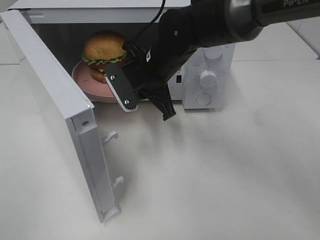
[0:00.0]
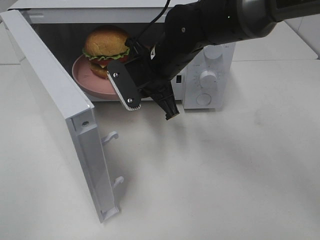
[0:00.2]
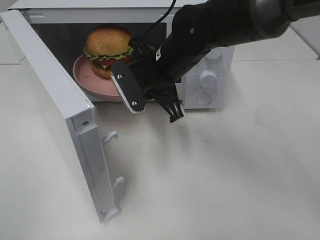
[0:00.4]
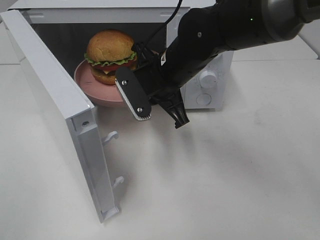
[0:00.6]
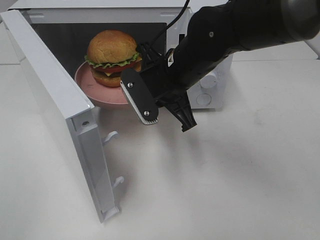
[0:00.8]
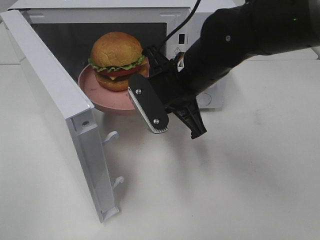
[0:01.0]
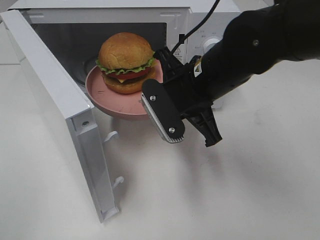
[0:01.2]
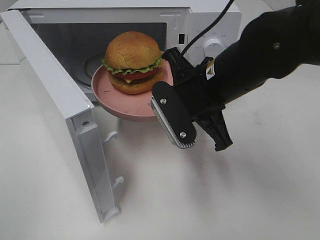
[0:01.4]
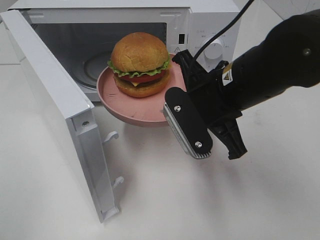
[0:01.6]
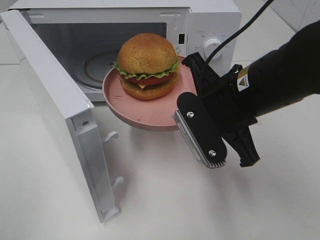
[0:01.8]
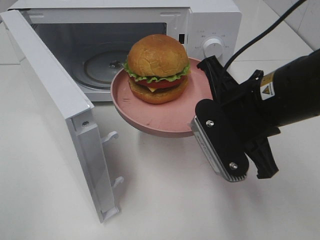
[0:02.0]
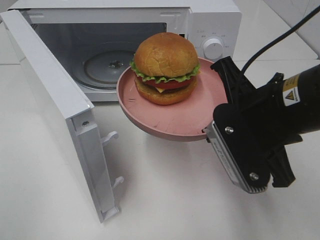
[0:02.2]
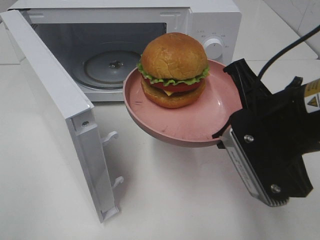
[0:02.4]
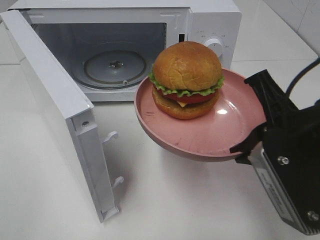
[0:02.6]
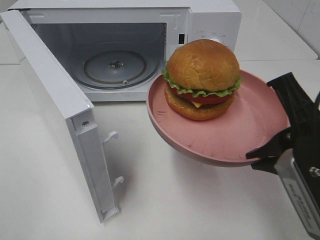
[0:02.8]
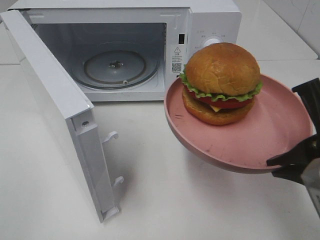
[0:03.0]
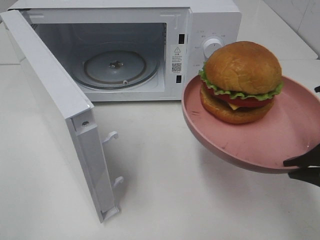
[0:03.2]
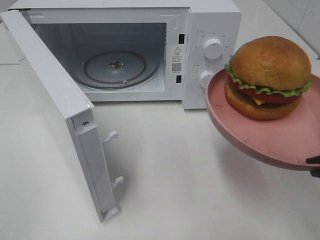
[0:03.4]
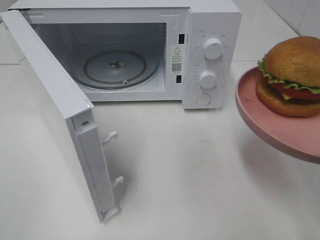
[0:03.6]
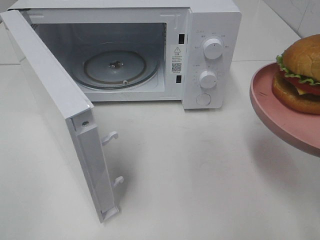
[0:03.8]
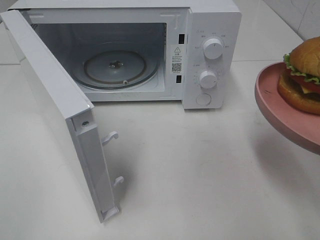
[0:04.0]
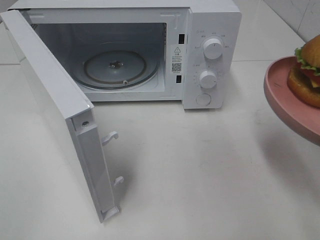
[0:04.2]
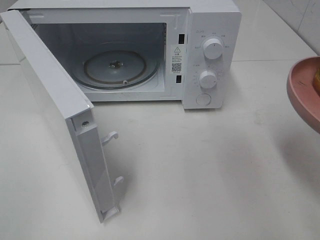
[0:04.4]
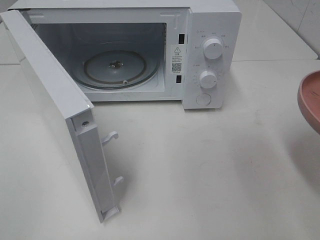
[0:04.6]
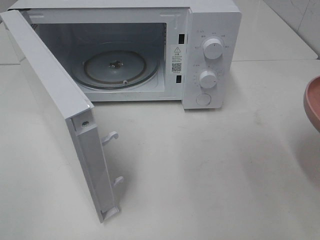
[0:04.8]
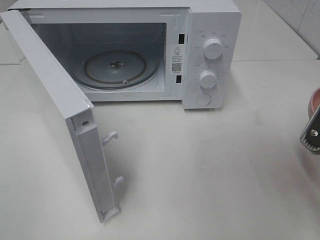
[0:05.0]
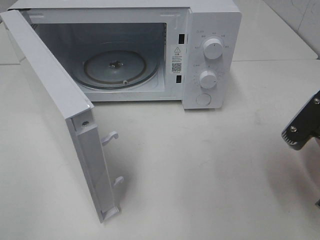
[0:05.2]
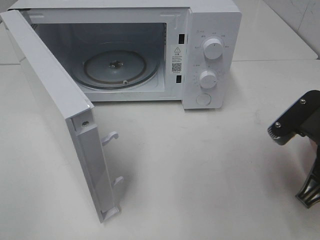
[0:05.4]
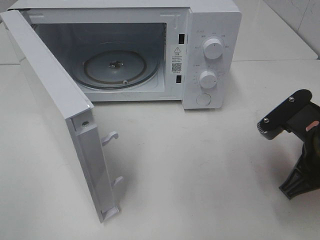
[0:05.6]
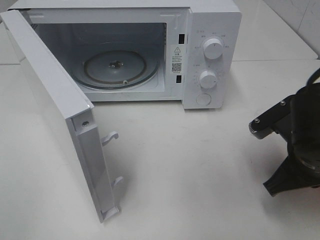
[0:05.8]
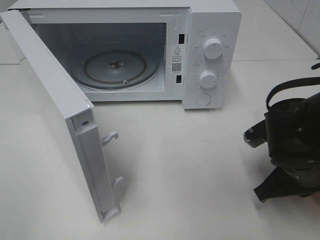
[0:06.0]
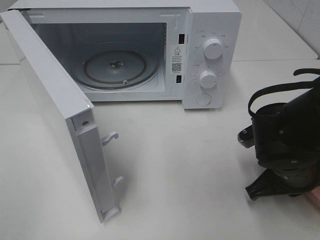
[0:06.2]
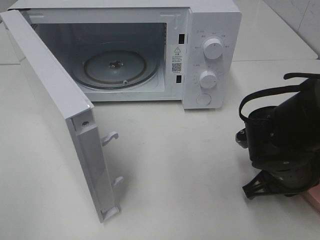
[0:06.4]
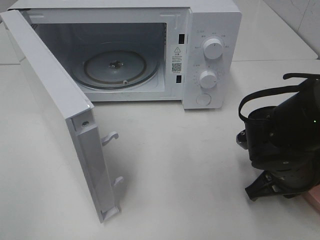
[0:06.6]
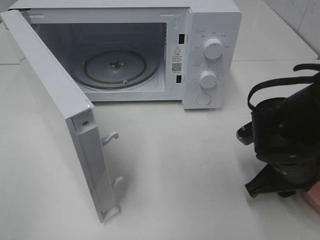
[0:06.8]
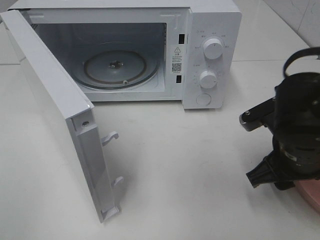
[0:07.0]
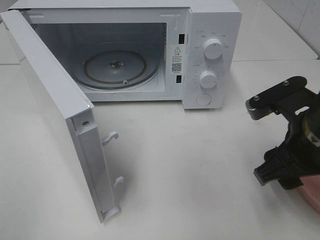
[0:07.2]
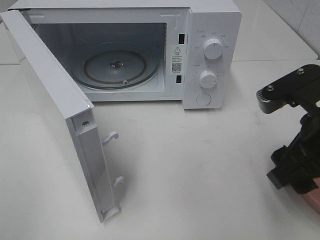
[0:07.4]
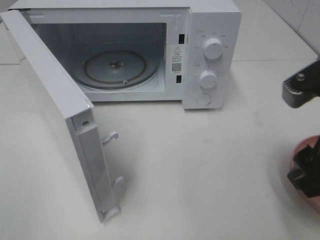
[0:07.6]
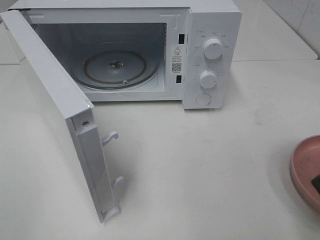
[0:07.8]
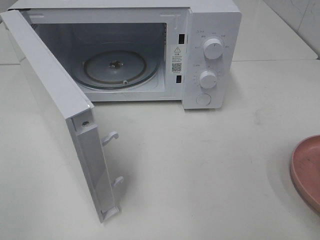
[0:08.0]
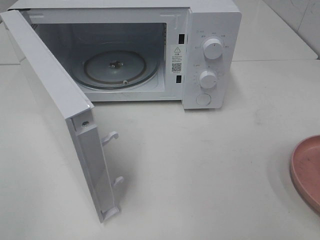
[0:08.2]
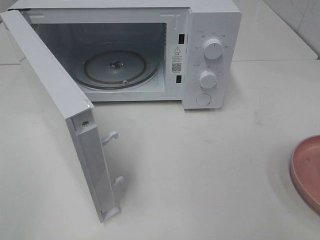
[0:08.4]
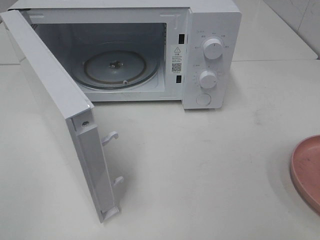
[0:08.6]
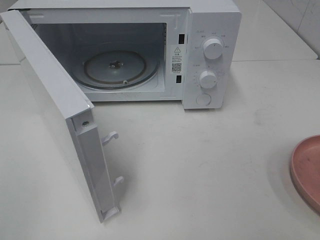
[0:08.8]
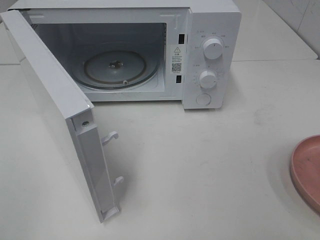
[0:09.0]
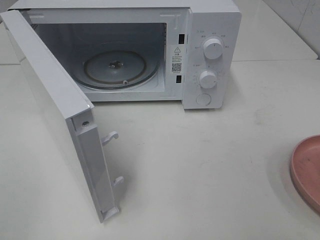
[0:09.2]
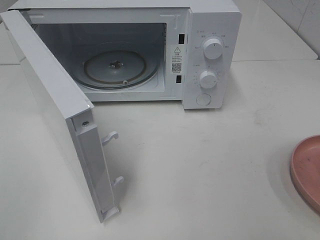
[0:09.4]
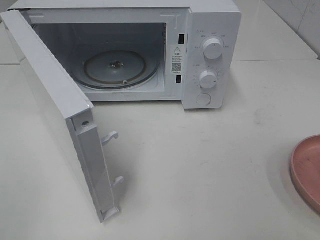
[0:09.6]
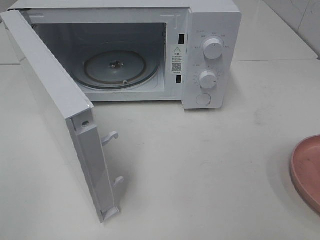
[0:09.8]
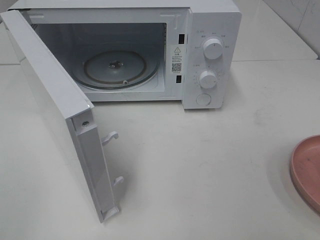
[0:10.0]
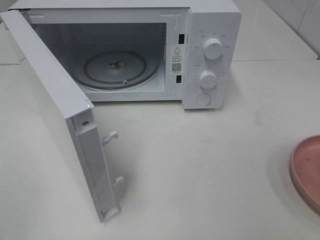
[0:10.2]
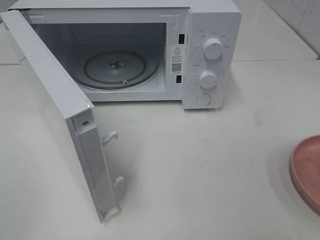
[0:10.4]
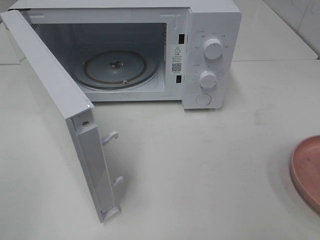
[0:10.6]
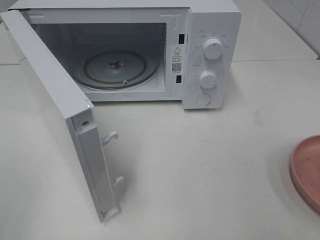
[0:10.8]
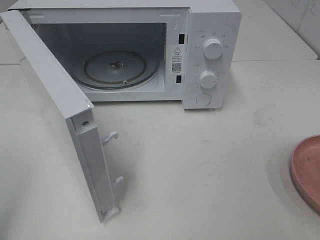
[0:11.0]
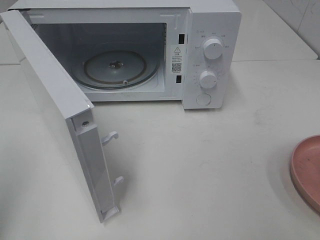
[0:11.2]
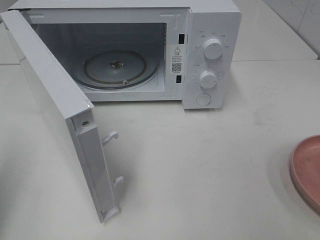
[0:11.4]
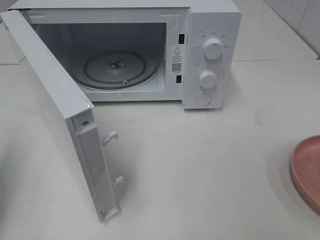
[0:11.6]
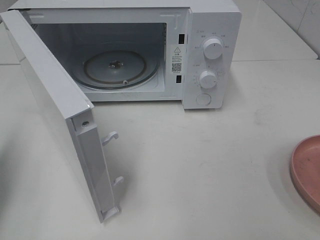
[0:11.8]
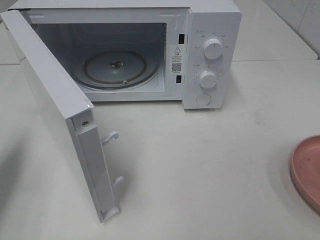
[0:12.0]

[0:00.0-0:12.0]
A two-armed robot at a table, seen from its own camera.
Task of the whole recording: Heat the burger.
Step, 0:00.0 to 0:07.0: Right hand: place the plate on the table.
0:00.0 to 0:01.6: The right gripper goes about 15 cm backward and to the right.
0:01.6 to 0:03.0: The right gripper goes some 15 cm backward and to the right.
0:03.0 to 0:04.4: The right gripper shifts some 5 cm to the right.
0:04.4 to 0:06.0: The right gripper moves downward, forward and to the left, approximately 20 cm.
0:06.0 to 0:07.6: The right gripper travels upward and backward by some 15 cm, and opens.
0:07.6 to 0:09.0: The right gripper is displaced backward and to the right by about 15 cm.
0:09.0 to 0:10.4: Both grippers stay put.
0:10.4 to 0:12.0: The left gripper travels forward by some 20 cm, and closes.

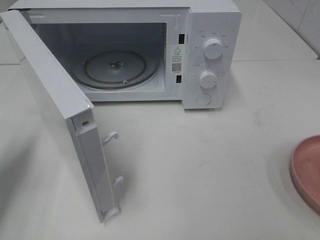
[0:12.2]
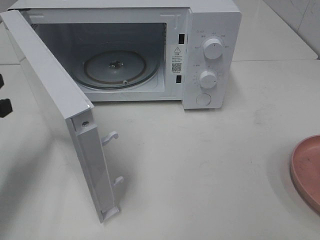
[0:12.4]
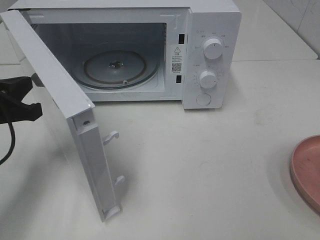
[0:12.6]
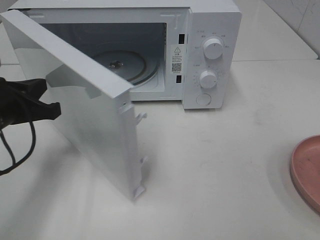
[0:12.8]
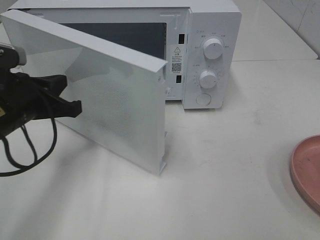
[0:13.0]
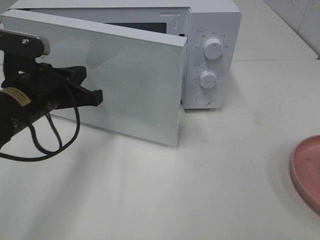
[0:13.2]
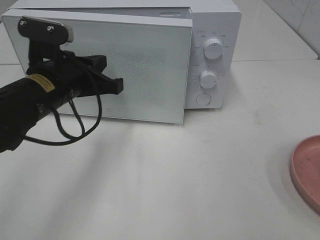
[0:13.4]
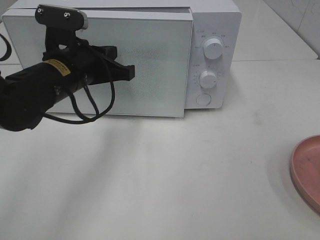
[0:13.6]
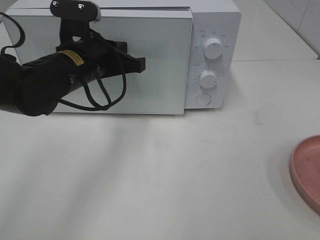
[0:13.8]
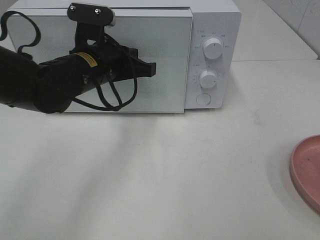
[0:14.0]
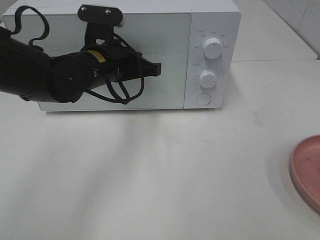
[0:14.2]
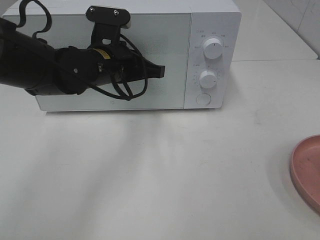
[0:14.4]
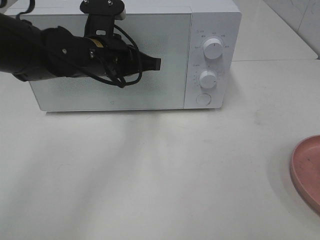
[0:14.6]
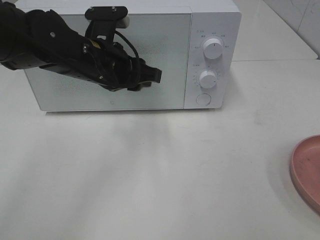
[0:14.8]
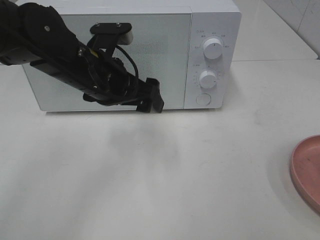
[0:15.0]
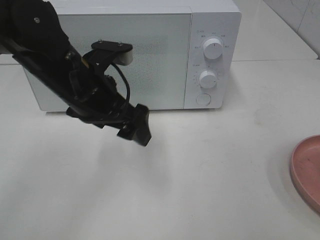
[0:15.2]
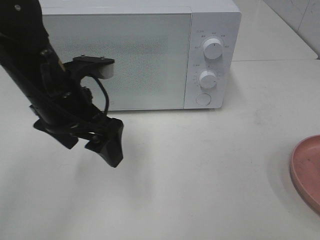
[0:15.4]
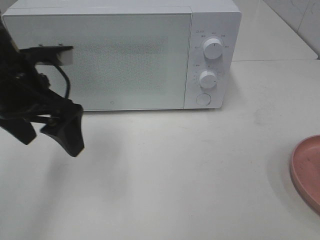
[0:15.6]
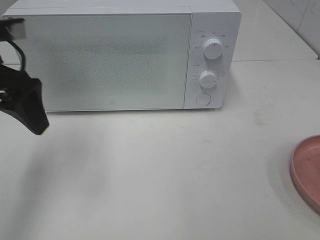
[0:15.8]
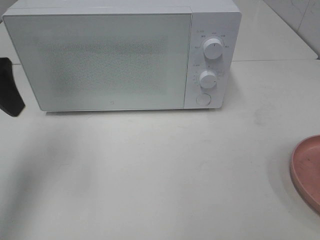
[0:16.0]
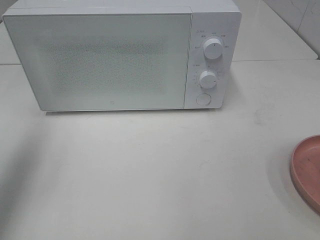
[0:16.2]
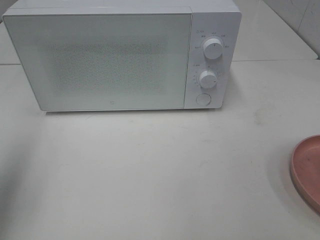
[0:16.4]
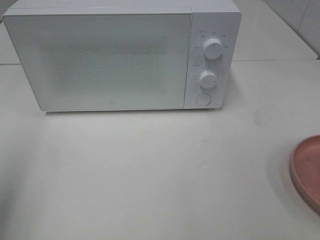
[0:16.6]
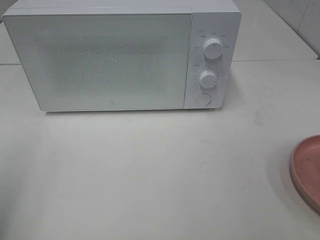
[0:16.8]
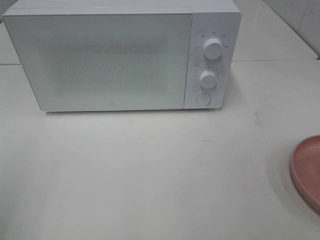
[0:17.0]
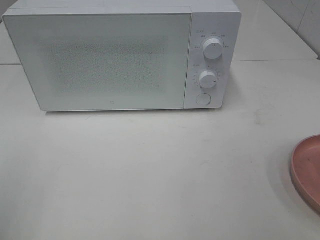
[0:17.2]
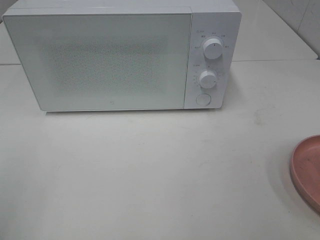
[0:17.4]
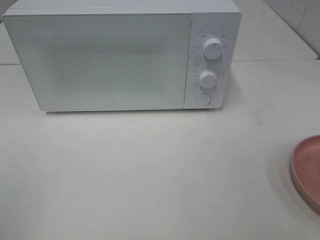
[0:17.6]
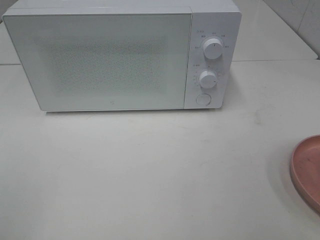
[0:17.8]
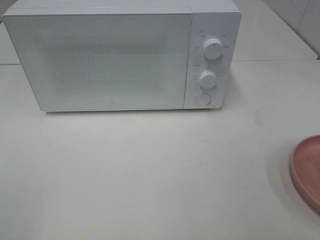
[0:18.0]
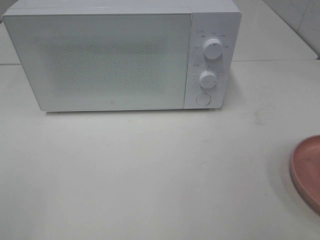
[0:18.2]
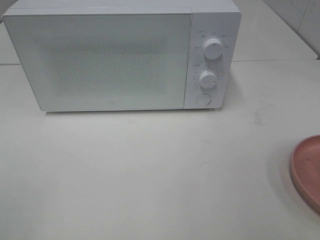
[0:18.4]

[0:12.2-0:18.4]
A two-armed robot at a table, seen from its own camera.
Task of the whole recording: Heat the burger.
Step, 0:12.2 to 0:14.8: Left hand: close the microwave door.
0:12.2 to 0:13.8: The left gripper is displaced to the right and forward by some 25 cm.
0:13.8 to 0:15.4: The left gripper heads backward, covering about 5 cm, and opens up.
0:15.4 to 0:16.8: The left gripper heads to the left, backward and upward, covering some 25 cm.

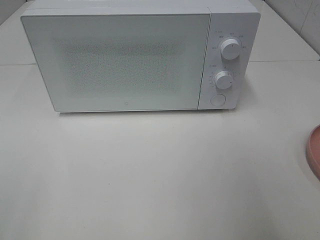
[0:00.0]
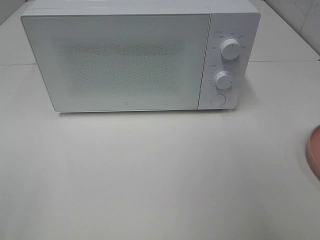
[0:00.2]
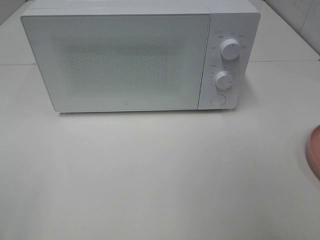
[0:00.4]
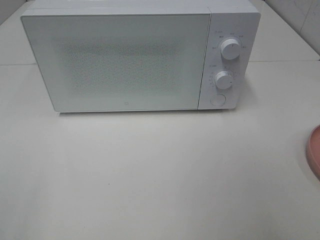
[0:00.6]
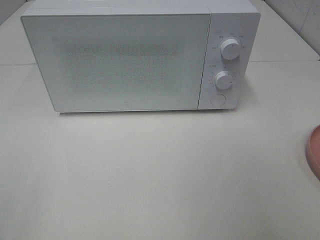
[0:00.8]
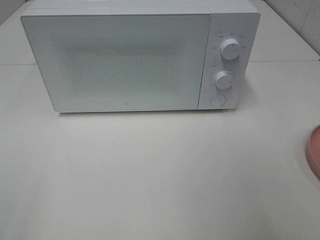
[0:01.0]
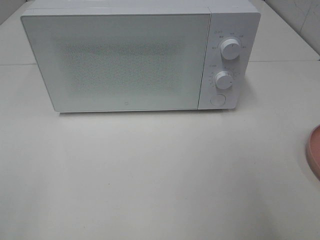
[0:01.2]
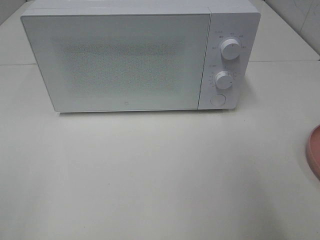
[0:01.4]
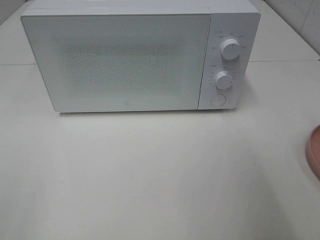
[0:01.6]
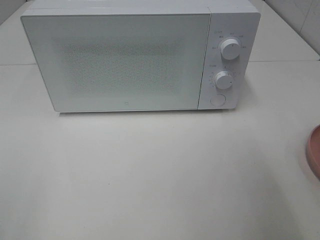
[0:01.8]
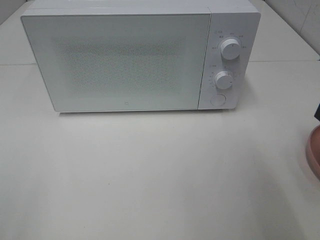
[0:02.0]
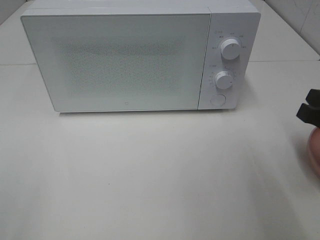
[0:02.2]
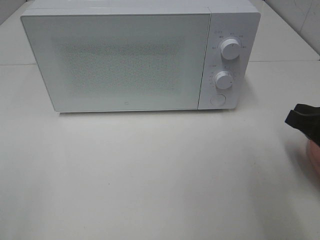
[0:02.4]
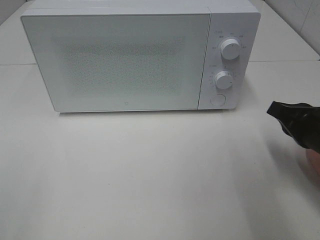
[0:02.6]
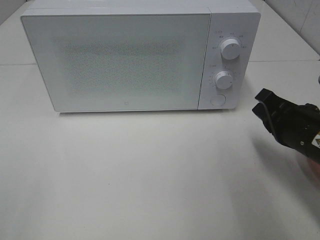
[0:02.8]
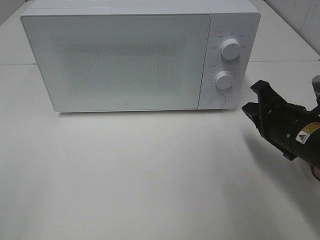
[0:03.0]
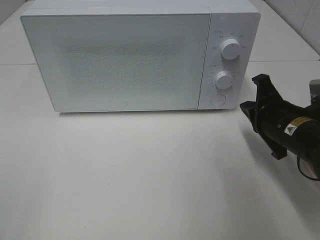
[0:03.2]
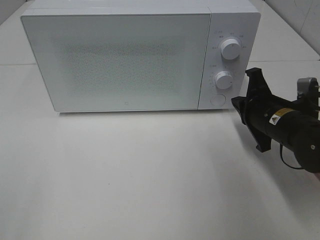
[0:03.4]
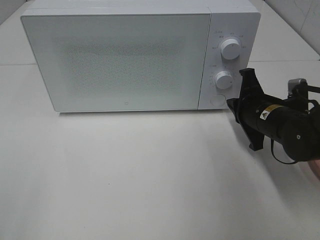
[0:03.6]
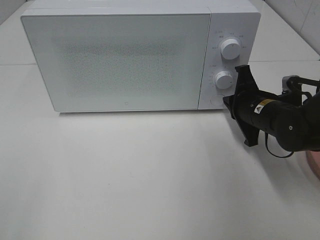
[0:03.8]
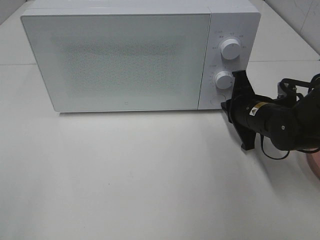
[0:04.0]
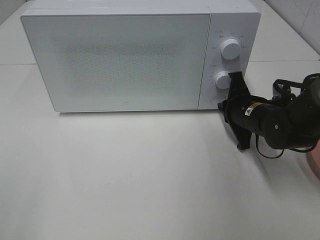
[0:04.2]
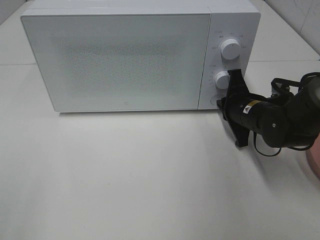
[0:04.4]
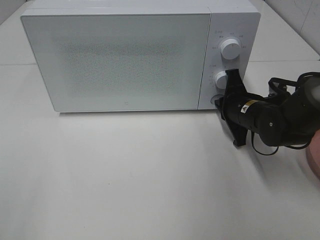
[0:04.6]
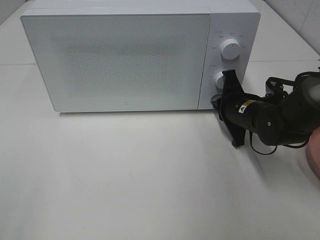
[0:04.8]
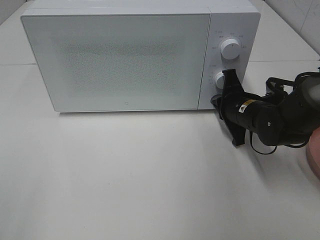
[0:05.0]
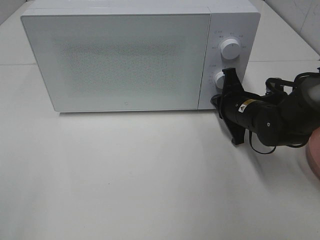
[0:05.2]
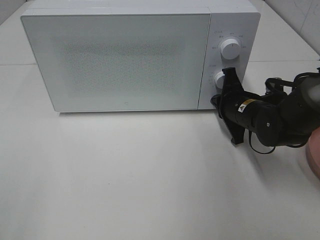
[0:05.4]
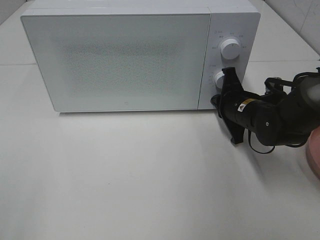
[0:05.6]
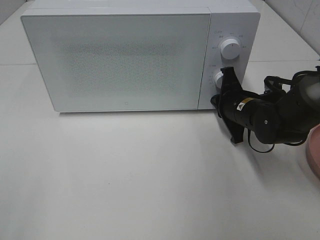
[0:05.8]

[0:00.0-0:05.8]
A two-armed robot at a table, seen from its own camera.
Task of the whole recording: Heat the burger.
0:01.4 to 0:02.8: The right gripper travels downward, forward and to the left by some 20 cm.
0:02.8 to 0:04.4: The right gripper travels forward and downward by approximately 10 cm.
0:04.4 to 0:05.8: Both grippers stay about where they are.
